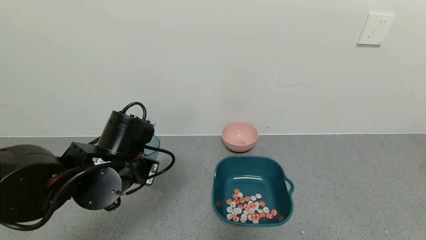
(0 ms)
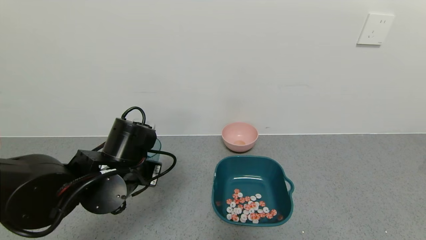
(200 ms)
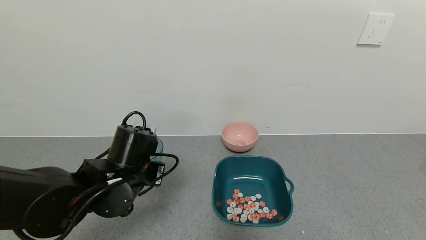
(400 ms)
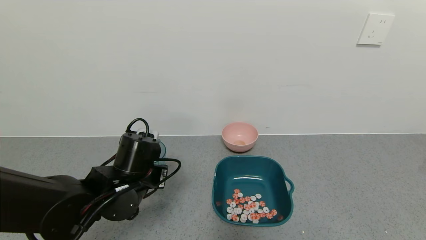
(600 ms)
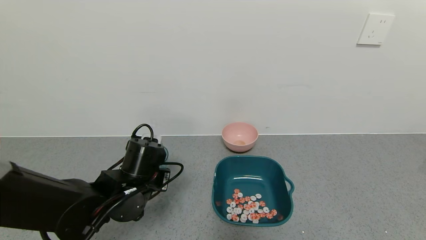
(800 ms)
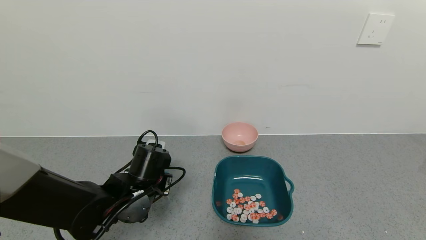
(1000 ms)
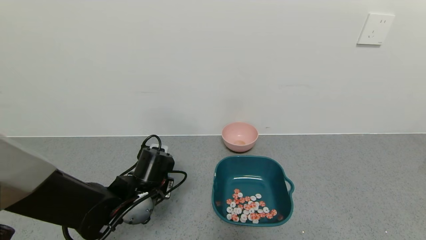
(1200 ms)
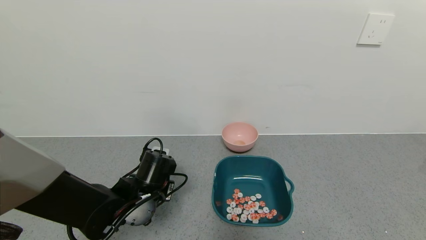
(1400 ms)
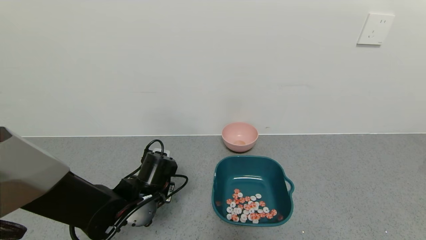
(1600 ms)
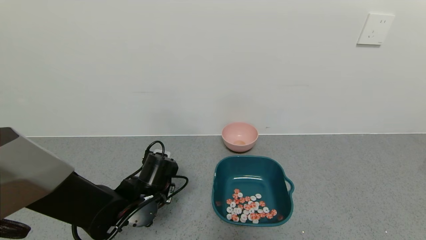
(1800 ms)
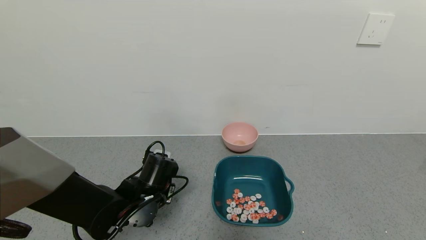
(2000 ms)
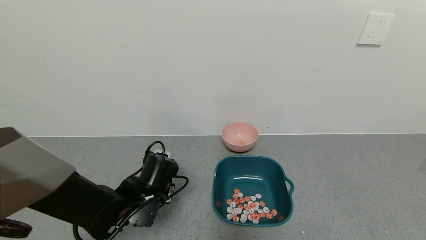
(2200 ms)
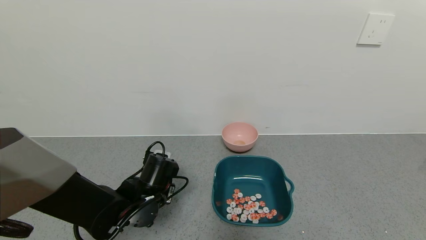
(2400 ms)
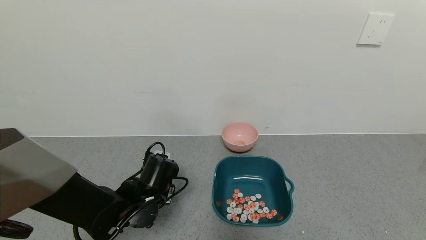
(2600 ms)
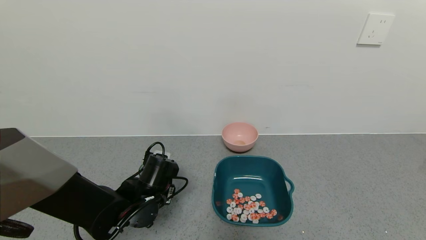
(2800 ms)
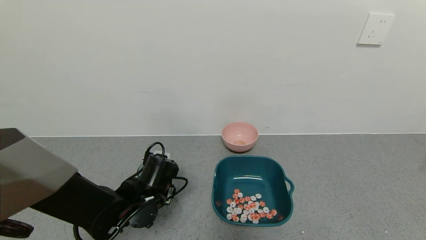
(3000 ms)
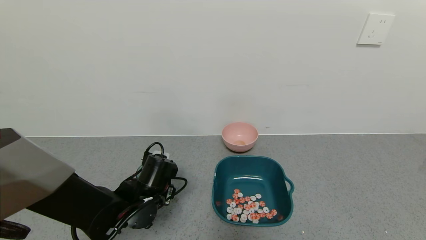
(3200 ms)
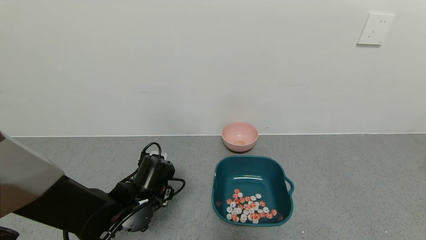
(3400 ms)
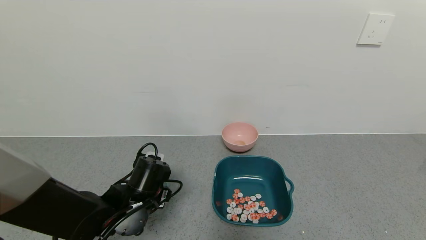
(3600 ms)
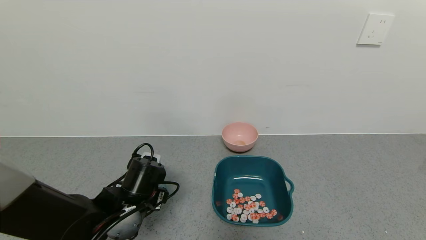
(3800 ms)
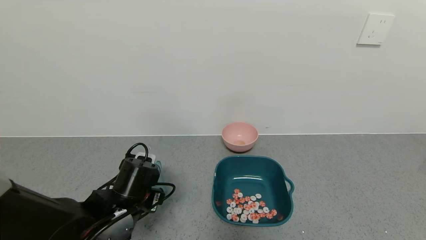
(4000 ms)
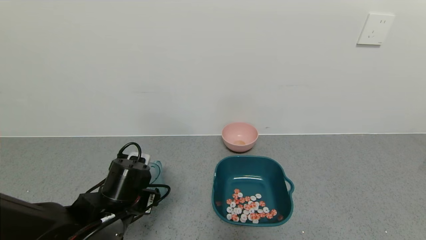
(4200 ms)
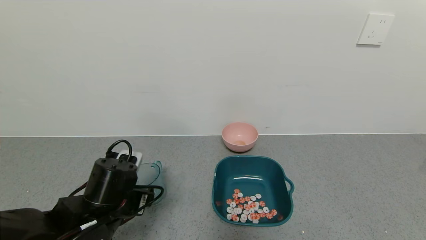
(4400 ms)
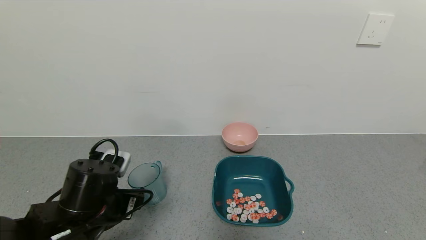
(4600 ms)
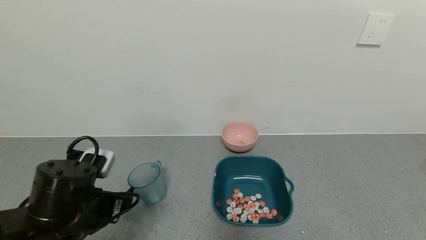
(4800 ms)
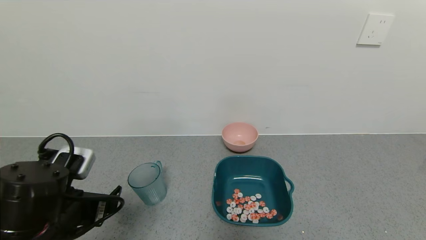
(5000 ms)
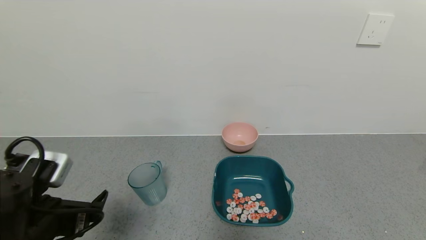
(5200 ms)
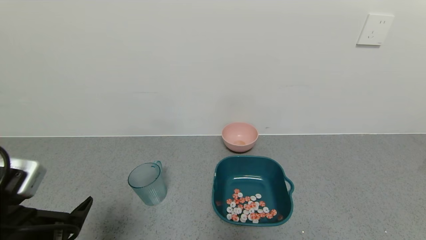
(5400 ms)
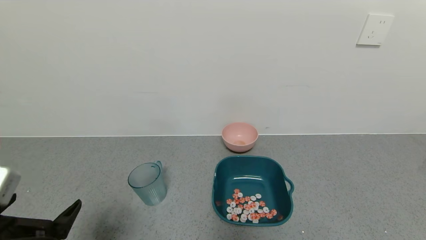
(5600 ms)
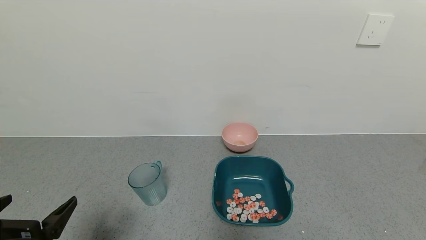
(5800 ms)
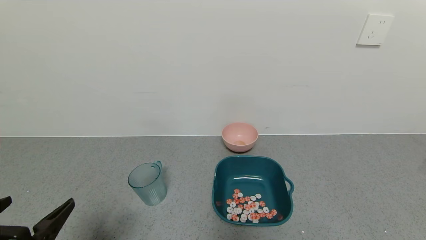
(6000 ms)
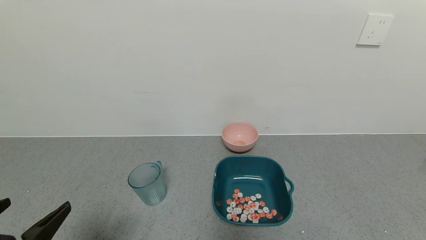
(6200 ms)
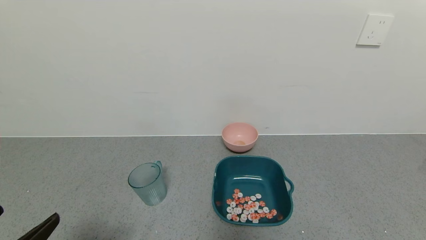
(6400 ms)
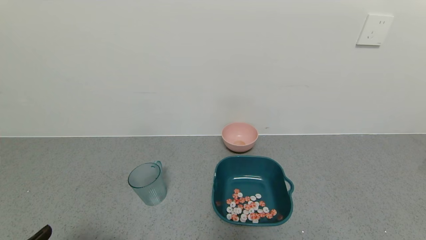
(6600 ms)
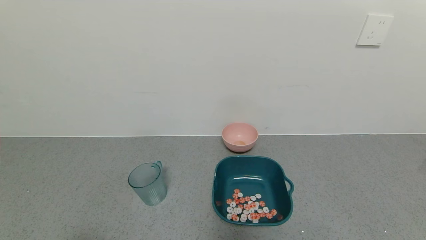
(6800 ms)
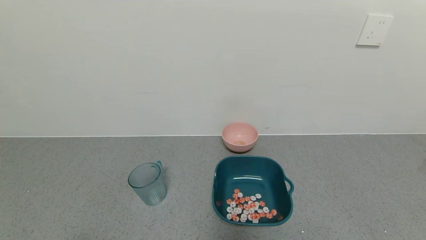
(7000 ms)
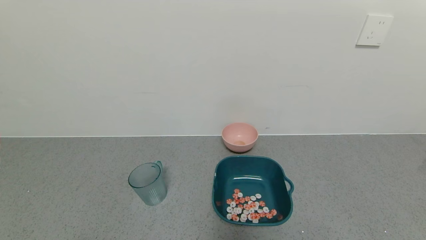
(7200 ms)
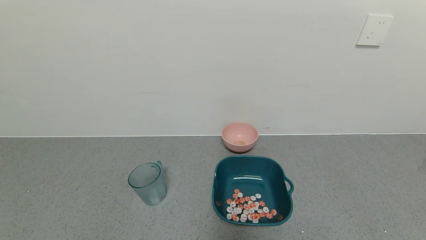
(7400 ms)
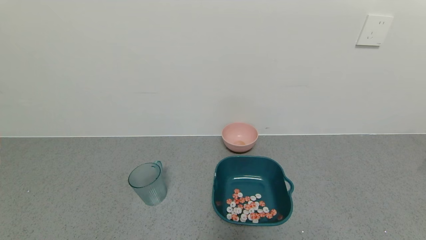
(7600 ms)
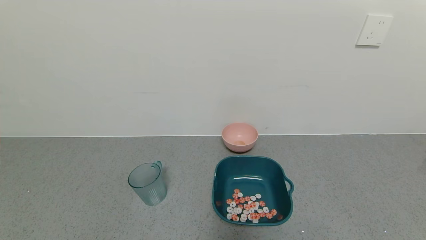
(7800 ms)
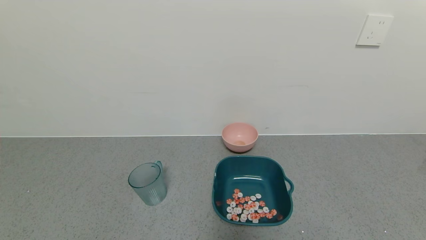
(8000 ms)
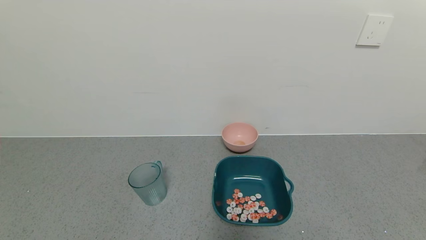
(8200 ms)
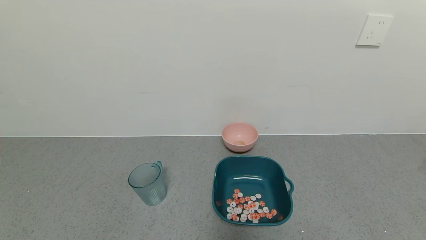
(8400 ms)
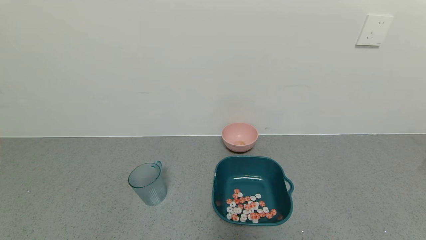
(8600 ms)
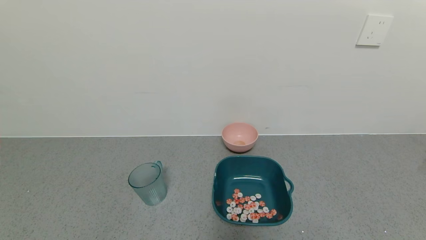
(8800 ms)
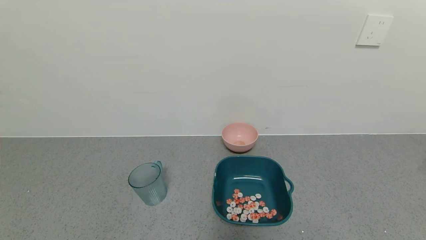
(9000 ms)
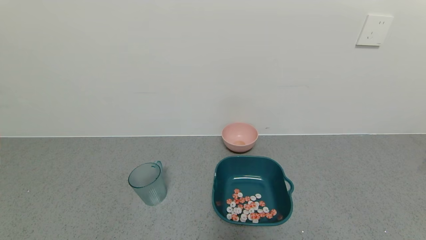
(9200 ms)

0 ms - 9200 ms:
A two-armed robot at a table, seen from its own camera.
Task of the whole recording: use a gripper to pick up the cup and pour the solid into a bowl or tray.
Step, 0 ms - 4400 ms: Place the glass cup with the left gripper.
0 ms - 1600 ms: The left gripper goes roughly 10 cm downward.
1600 ms - 3000 ms: The left gripper opens up.
3000 ms - 4600 ms: The left gripper moves backward and upward, about 10 cm.
4600 ms - 6200 ms: The left gripper moves backward, to the left and upward, approximately 15 cm.
6200 ms - 7600 ms: The left gripper travels backward and downward by about 10 cm.

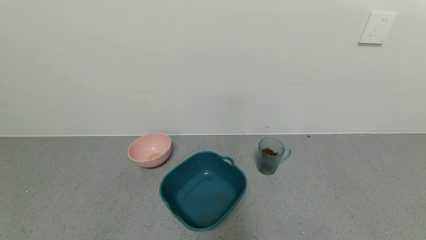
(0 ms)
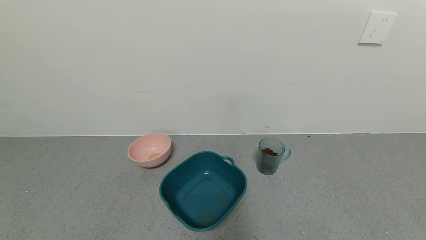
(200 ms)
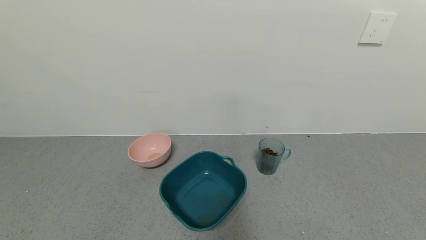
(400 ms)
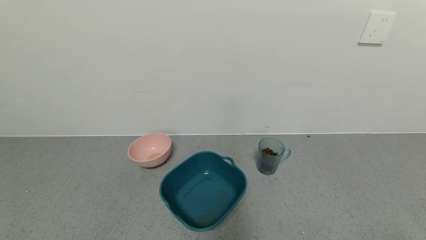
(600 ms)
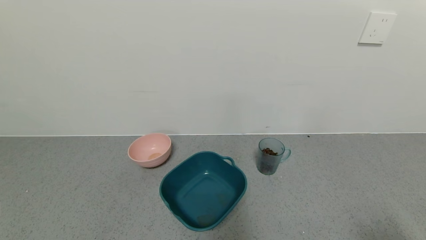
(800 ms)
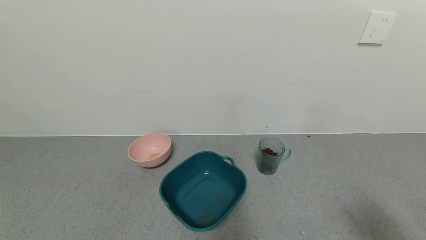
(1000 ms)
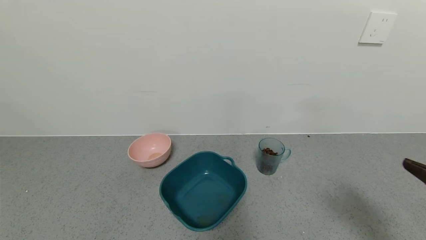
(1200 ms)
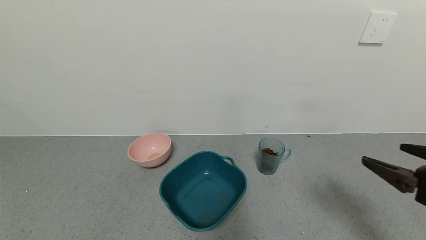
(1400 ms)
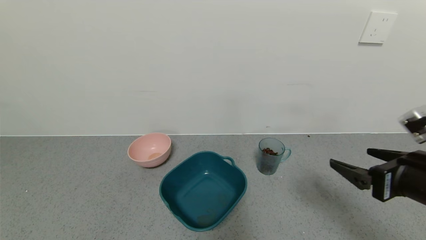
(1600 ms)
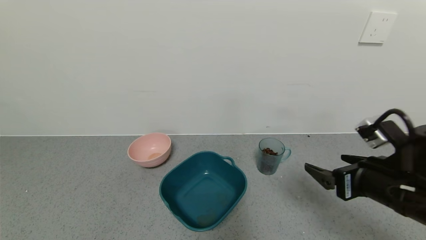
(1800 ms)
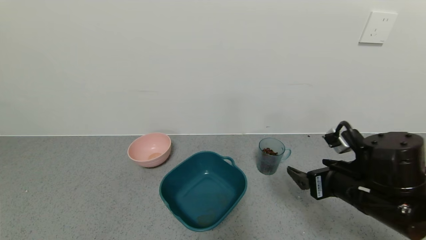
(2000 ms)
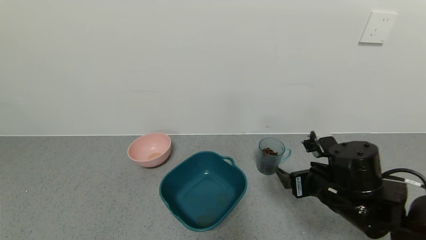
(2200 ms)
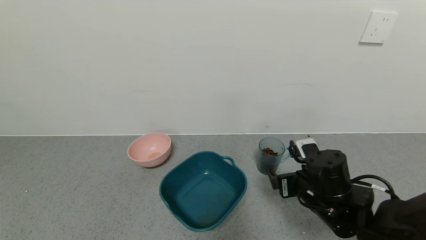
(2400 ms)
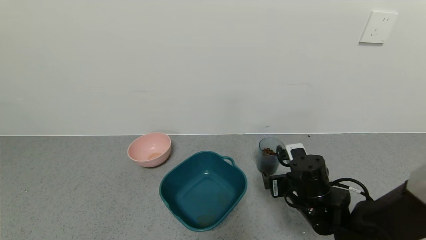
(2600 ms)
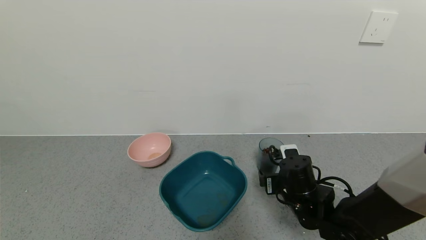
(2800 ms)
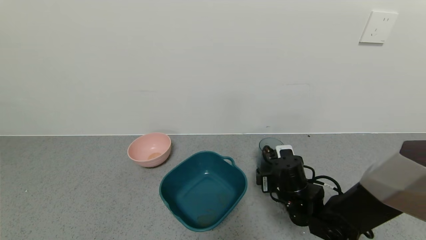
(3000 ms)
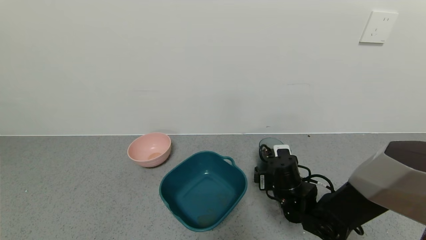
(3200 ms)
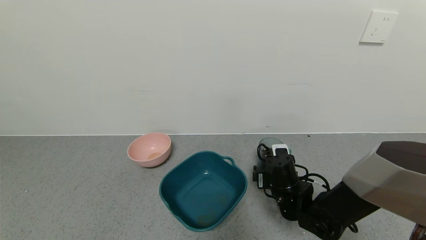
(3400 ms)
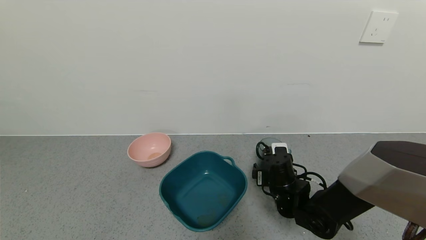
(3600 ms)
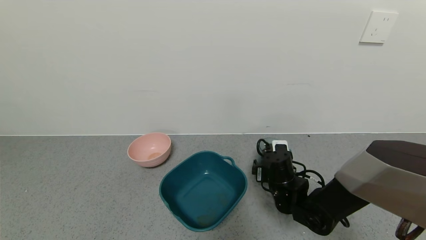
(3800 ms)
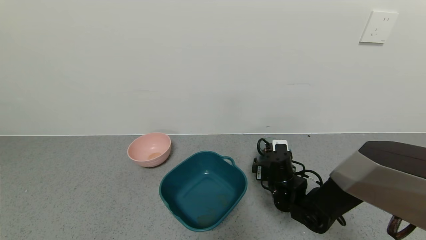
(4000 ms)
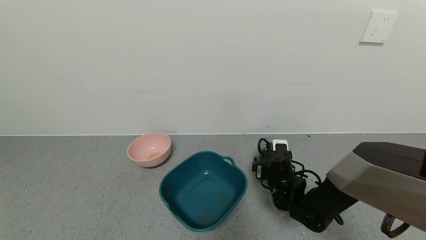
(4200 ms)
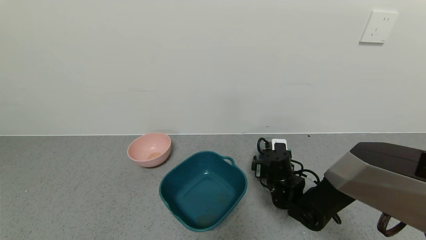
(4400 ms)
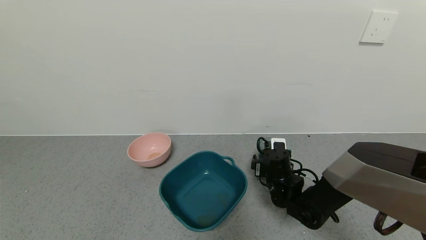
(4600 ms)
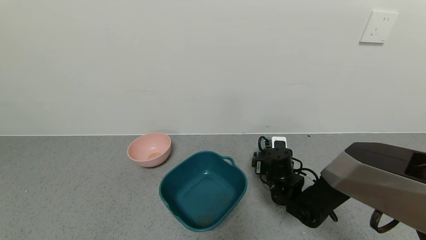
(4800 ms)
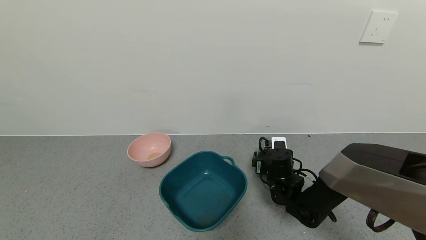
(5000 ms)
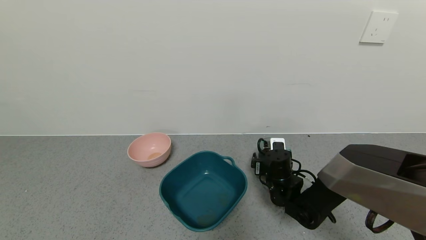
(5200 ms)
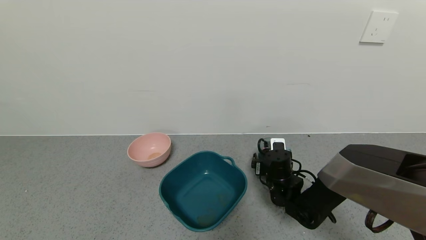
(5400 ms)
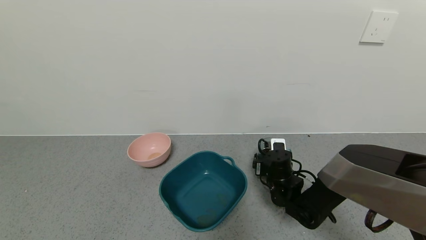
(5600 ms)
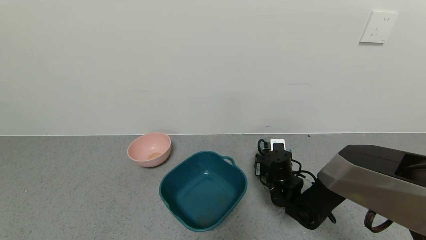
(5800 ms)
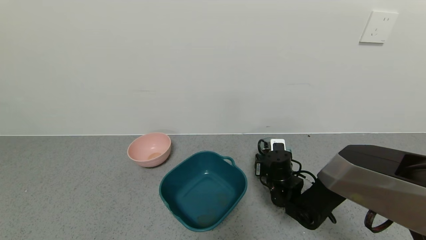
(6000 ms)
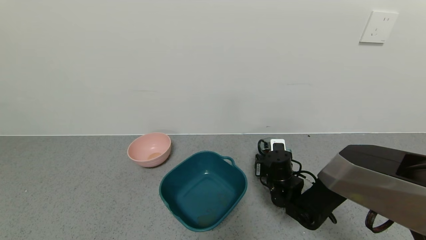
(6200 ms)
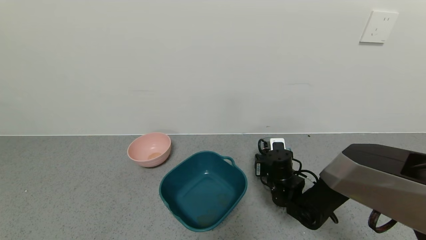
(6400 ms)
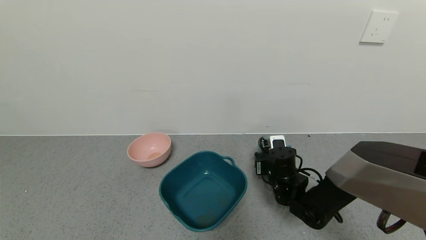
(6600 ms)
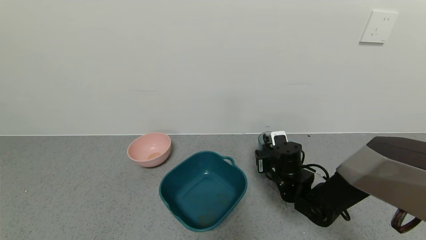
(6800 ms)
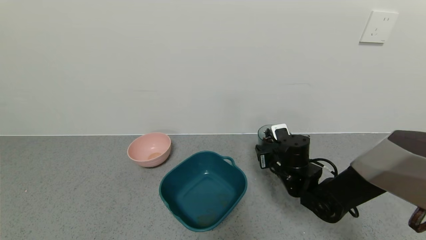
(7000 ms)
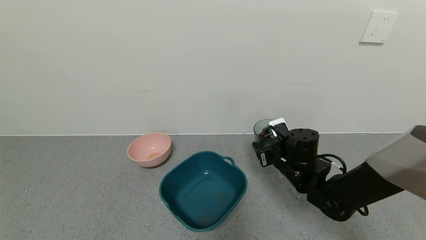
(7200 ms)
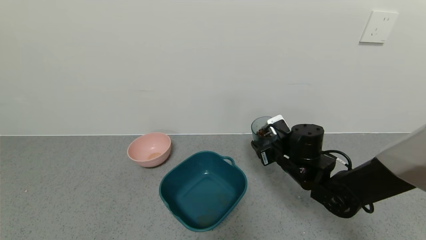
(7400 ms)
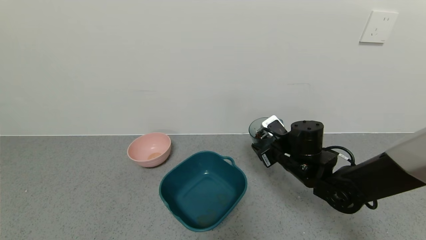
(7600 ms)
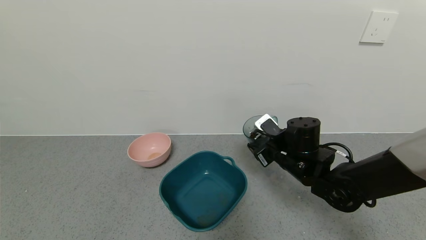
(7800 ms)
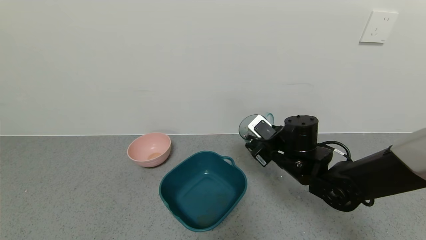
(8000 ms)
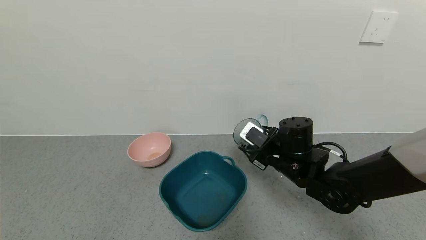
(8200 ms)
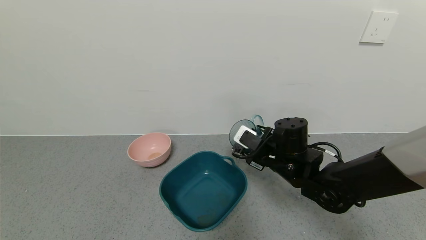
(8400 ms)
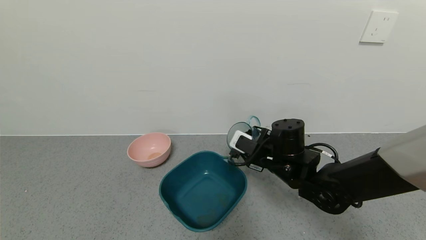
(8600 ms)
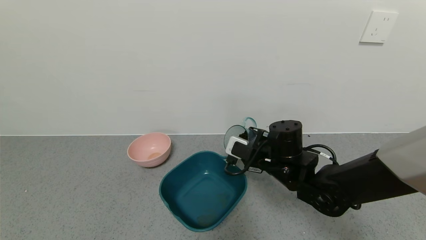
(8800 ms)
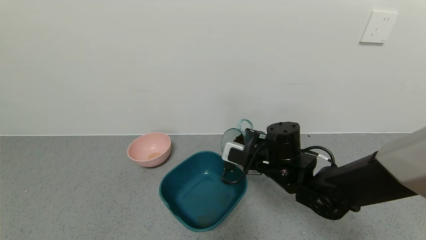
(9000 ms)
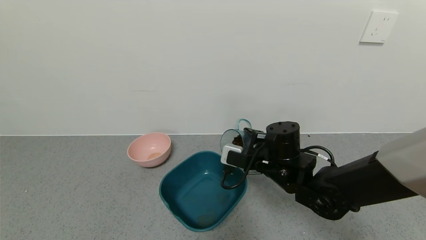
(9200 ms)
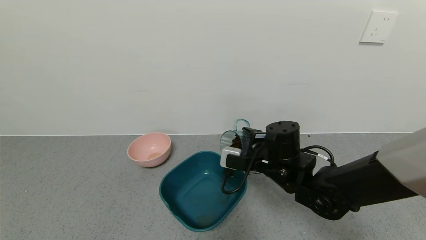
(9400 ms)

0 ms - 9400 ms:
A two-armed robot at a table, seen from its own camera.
Task of the whole recording: use a gripper to pick up the cup and pour the solid into a bowl or tray.
Step, 0 ms - 6400 ms: Grasp the glass of coffee beans with the right gripper.
0 ms - 1600 ms: The right gripper moves forward and upward, about 25 cm.
1600 ms - 3200 ms: The right gripper travels downward, to the left and forward by some 25 cm.
3200 ms - 4800 ms: The right gripper changes place by some 5 cm.
4800 ms - 6200 ms: The right gripper closes up.
6200 ms - 7800 ms: The right gripper travels upward by about 10 cm.
